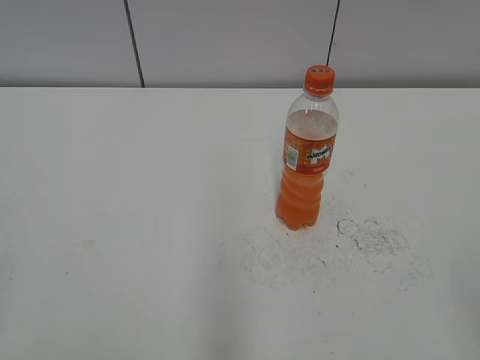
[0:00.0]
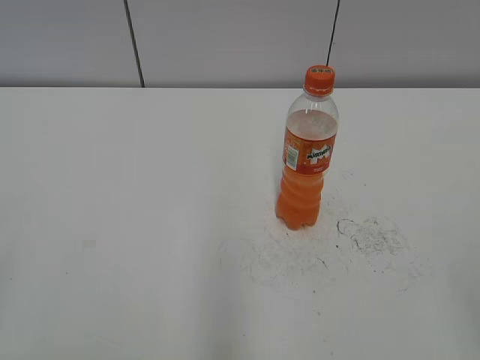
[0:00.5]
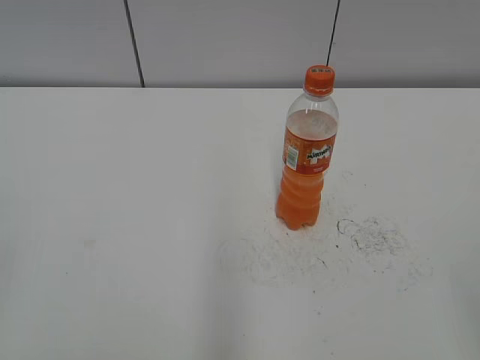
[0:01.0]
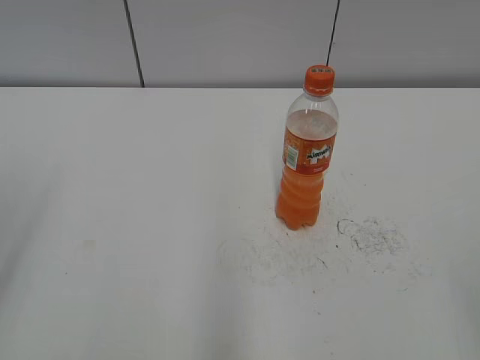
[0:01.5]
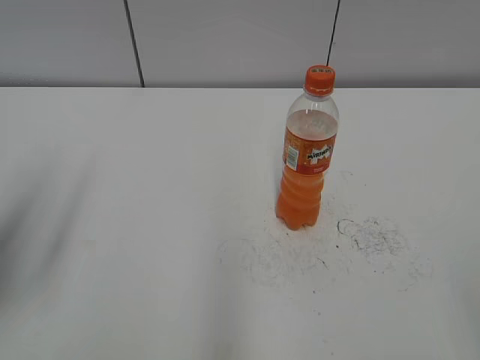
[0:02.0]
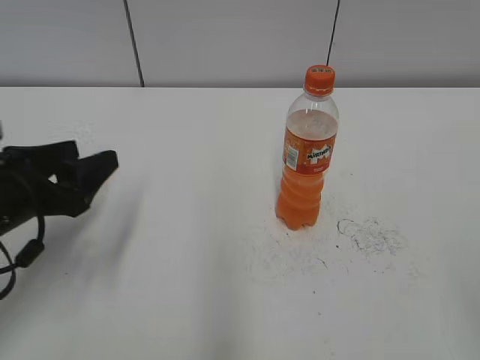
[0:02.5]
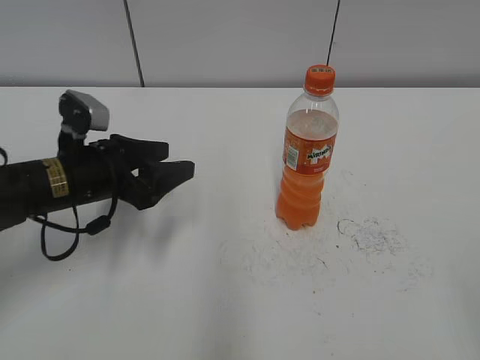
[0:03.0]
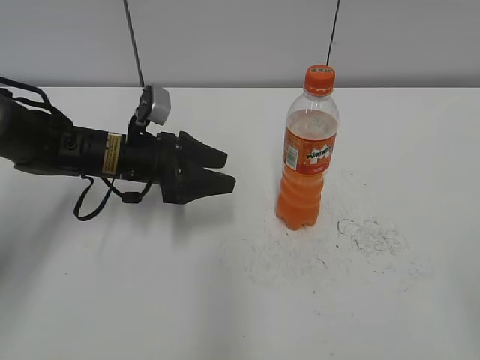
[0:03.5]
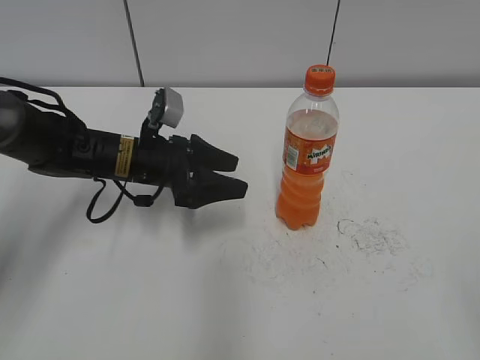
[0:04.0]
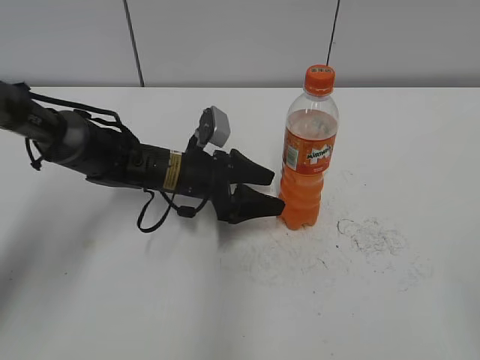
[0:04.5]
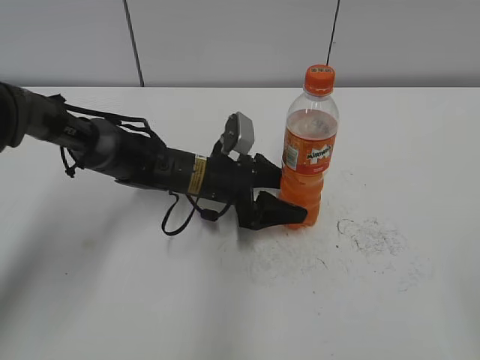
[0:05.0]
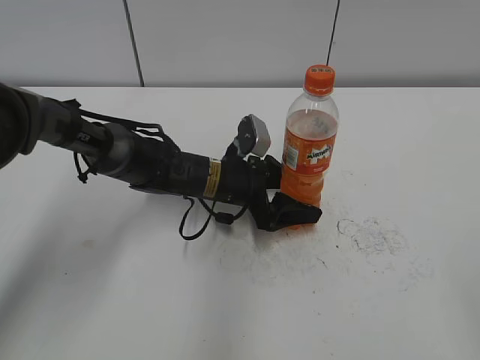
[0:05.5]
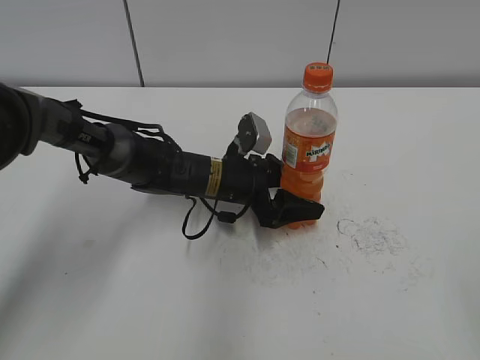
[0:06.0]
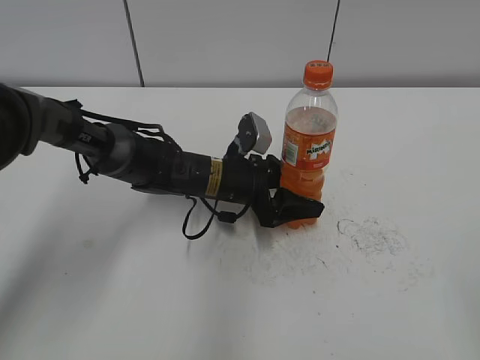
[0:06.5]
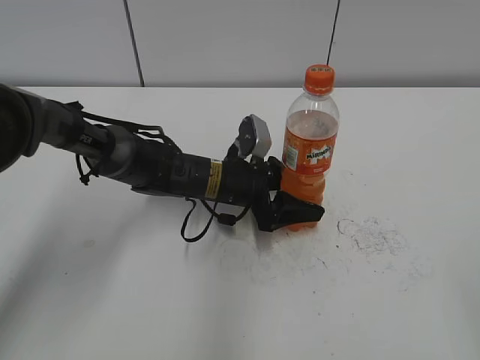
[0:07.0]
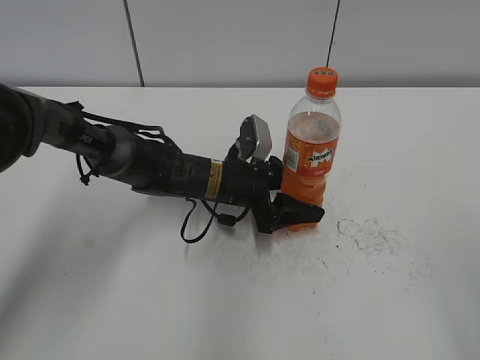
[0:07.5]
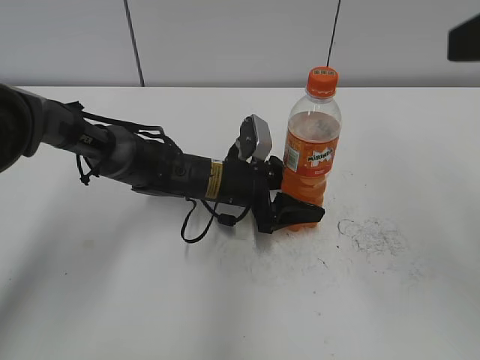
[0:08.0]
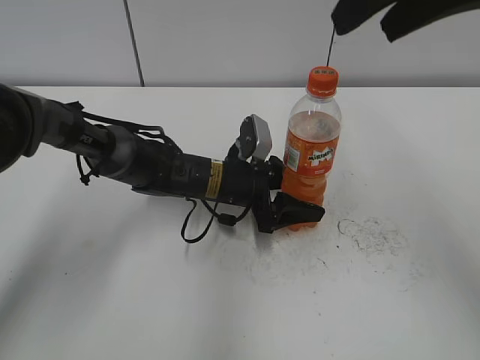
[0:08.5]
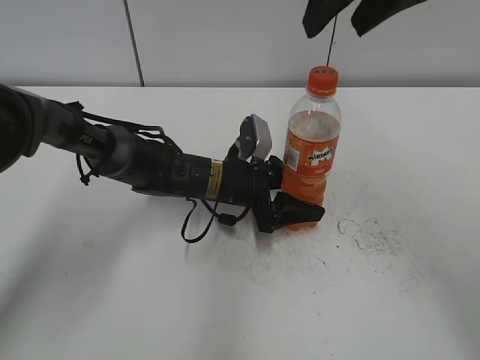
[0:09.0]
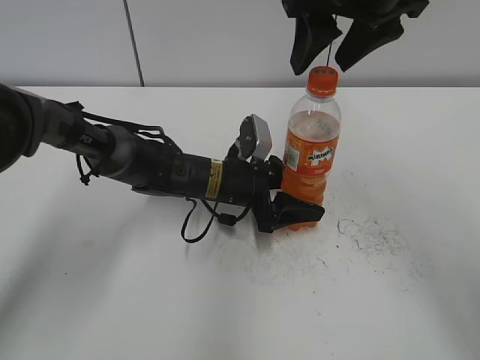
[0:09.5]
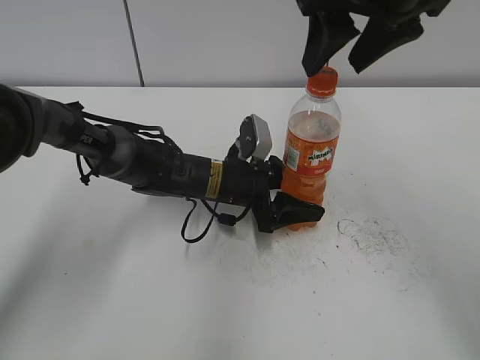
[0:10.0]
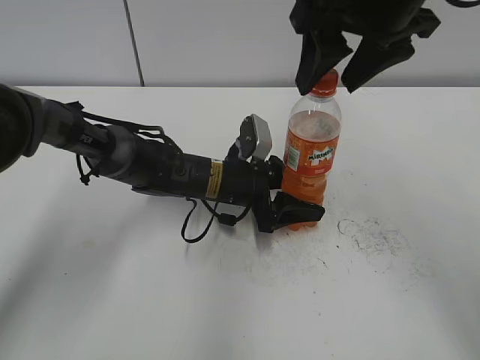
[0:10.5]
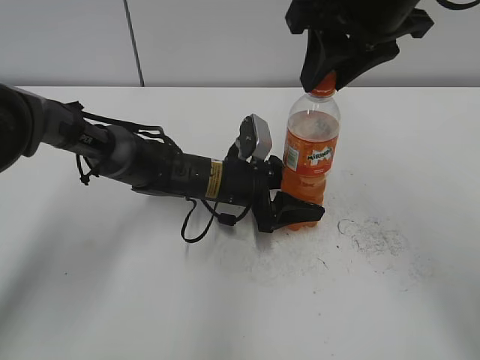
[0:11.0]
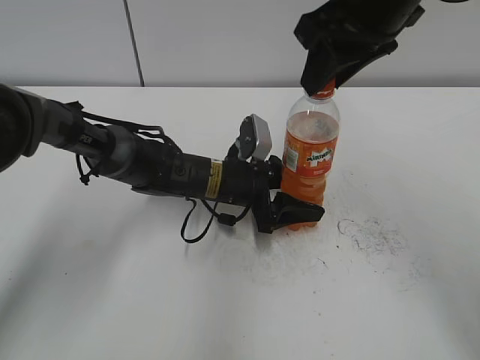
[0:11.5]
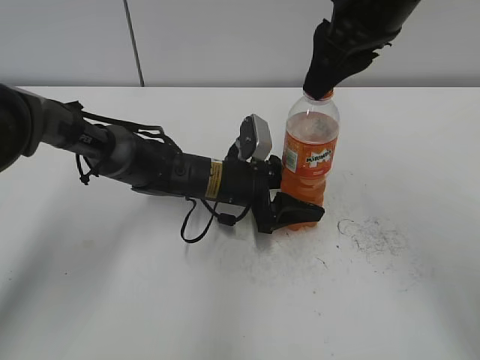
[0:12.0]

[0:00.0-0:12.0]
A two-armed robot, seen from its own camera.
Step, 0.0 to 6.5 s: Grab the Mirinda with the left hand.
2.0 to 4.0 s: The left gripper travels forward, to the right and downward by about 30 cm.
4.0 to 6.0 s: The left gripper shifts roughly 10 cm to the right.
6.0 to 8.0 s: The right gripper is displaced forward and upward by some 20 cm.
8.0 to 10.0 s: The right gripper travels forward and to the left by some 20 cm.
10.0 to 12.0 s: The right gripper closes its fingers.

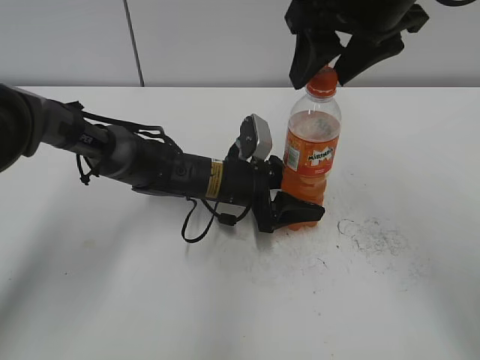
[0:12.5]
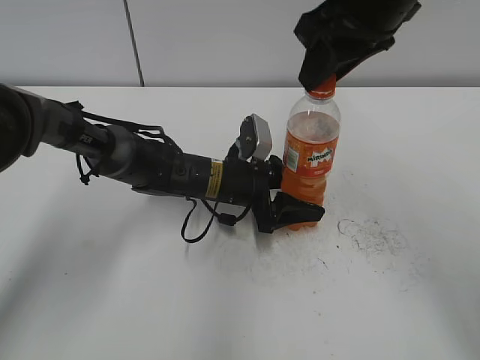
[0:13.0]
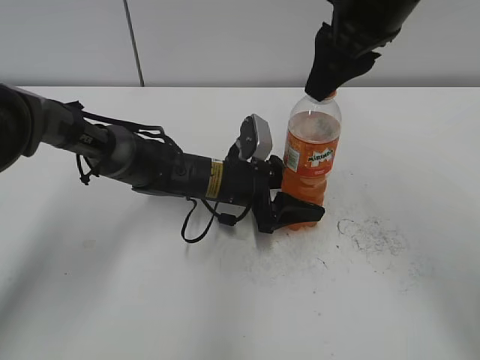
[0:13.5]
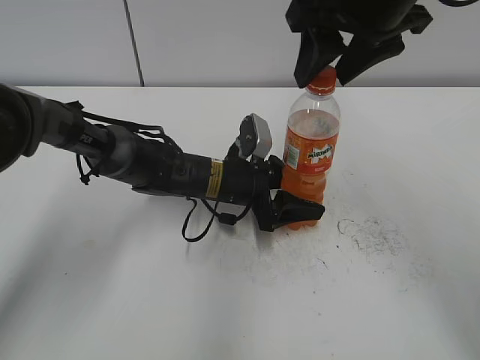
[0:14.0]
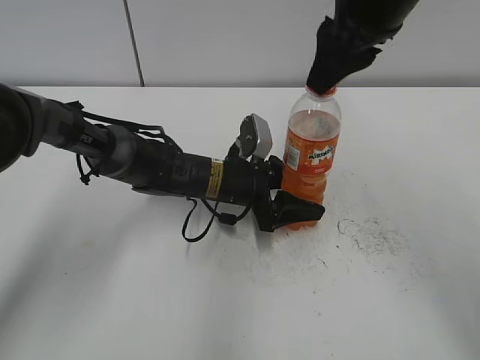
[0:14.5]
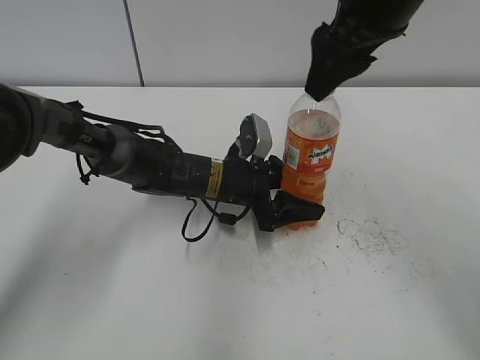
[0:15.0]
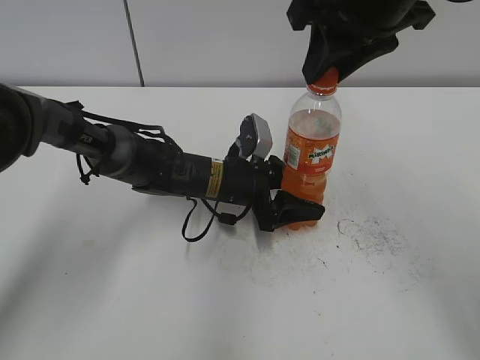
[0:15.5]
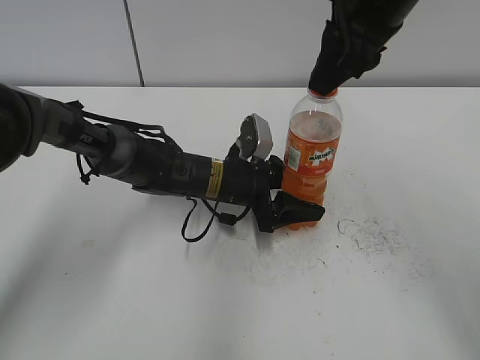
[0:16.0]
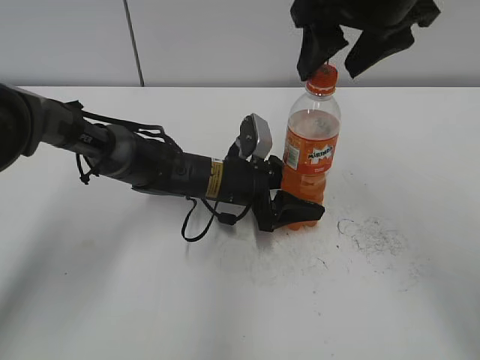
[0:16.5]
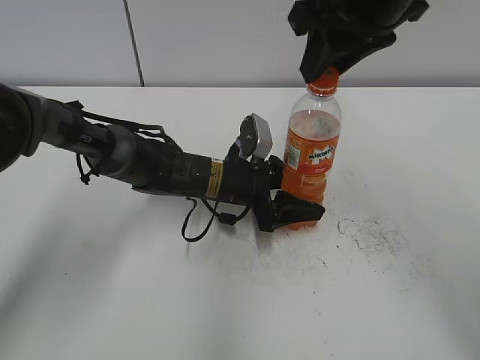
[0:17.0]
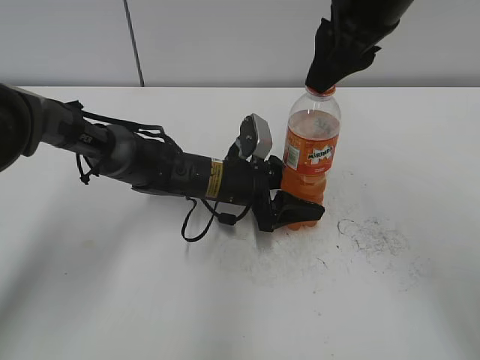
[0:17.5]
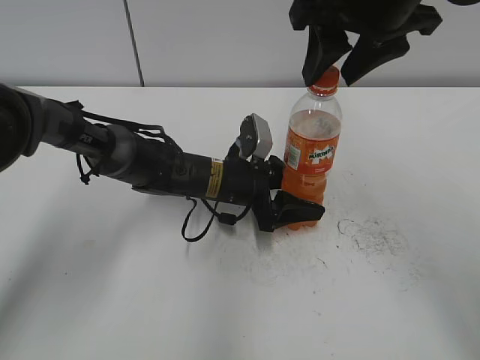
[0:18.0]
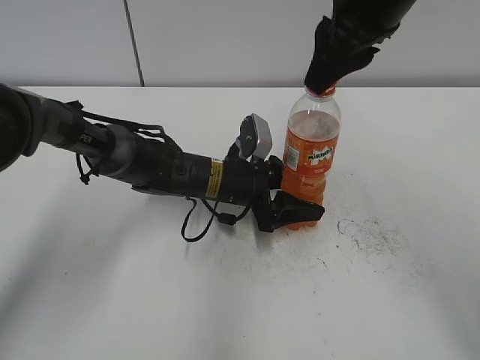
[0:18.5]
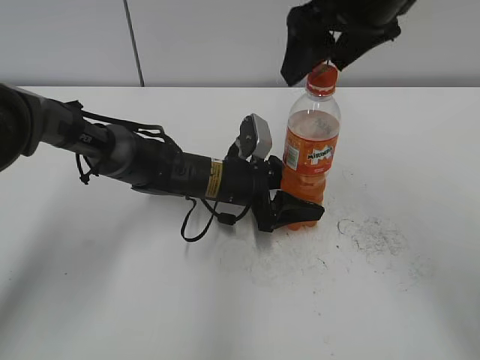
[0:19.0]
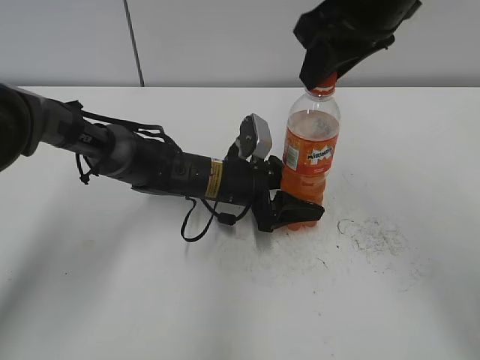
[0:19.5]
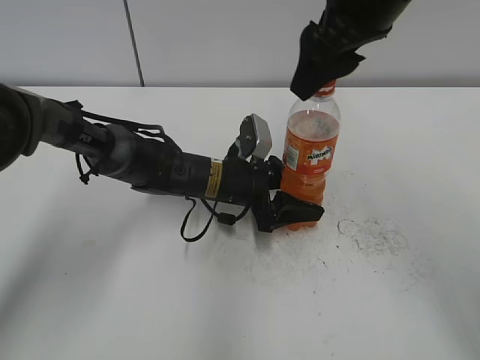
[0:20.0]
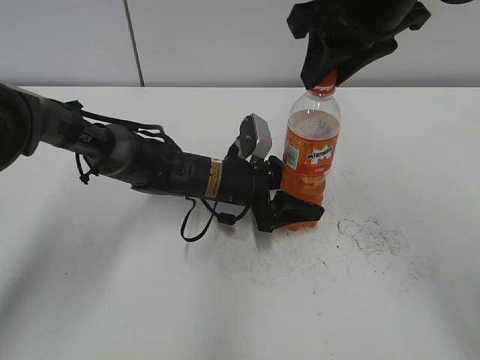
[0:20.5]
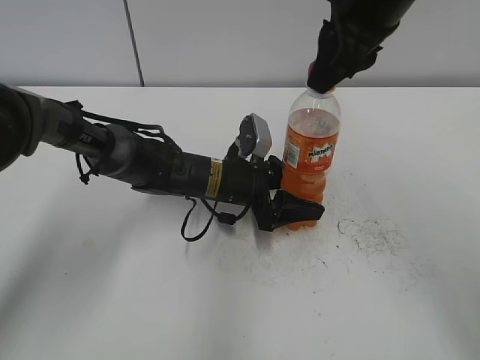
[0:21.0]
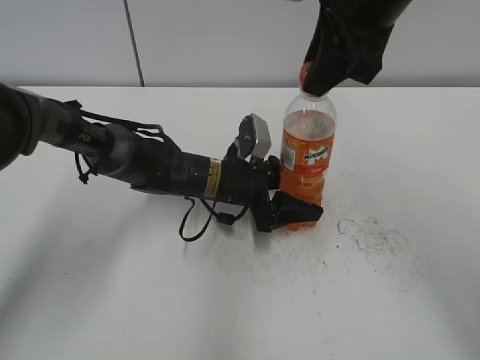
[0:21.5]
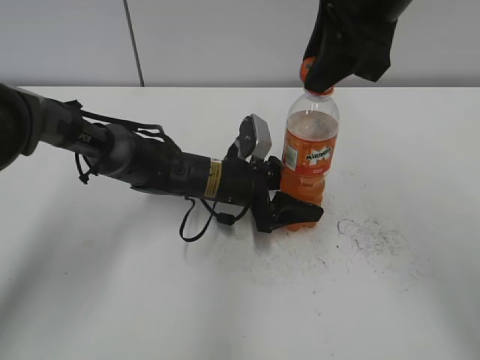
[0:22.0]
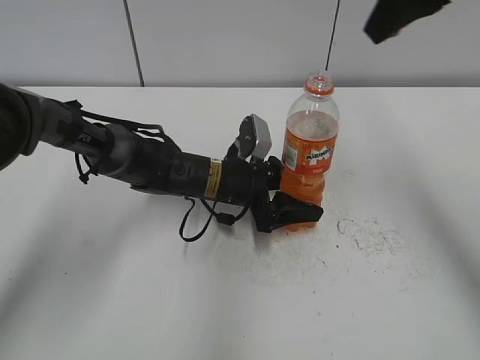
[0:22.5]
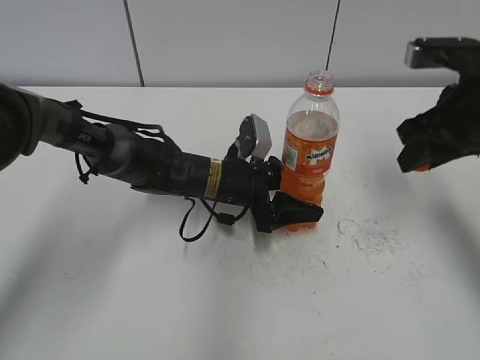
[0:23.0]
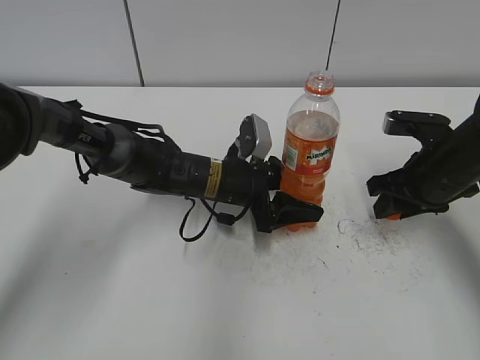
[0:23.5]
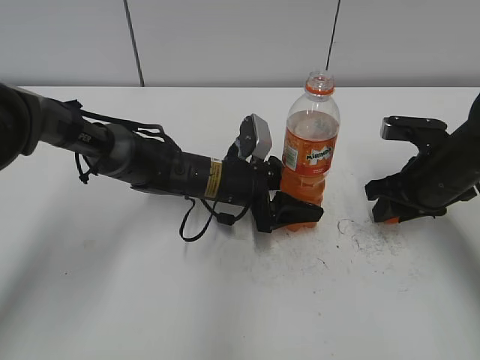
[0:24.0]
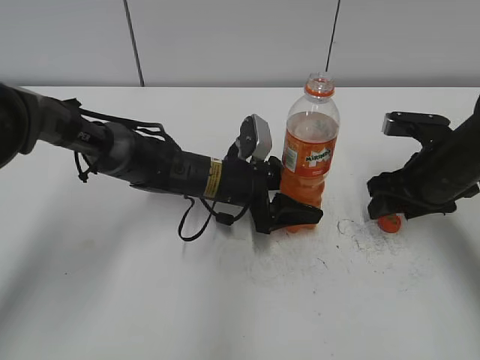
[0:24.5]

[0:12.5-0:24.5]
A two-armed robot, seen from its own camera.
Step, 12.5 to 22.0 s: Twist the bottle cap with the right hand.
Step, 22.5 to 24.0 s: Place the bottle cap on the table with the right hand.
12.5 to 14.5 s: The right gripper closes.
14.5 to 16.5 s: The right gripper opens.
16.5 to 18.5 s: The right gripper closes its fingers.
18.5 to 20.5 s: The right gripper opens, then closes again.
20.5 to 22.5 s: The right gripper goes about 5 cm to the right.
22.5 to 24.5 s: The right gripper moves downward, some 25 cm, and opens.

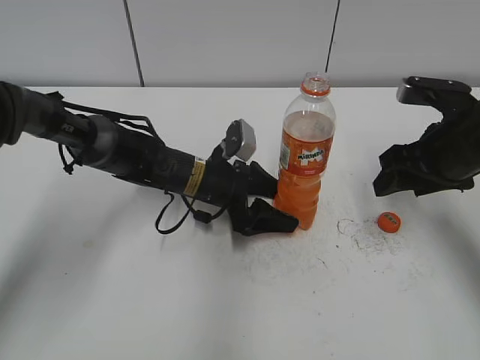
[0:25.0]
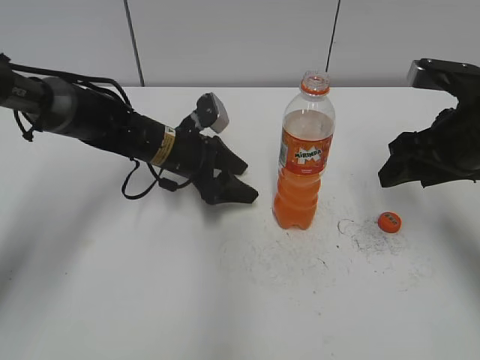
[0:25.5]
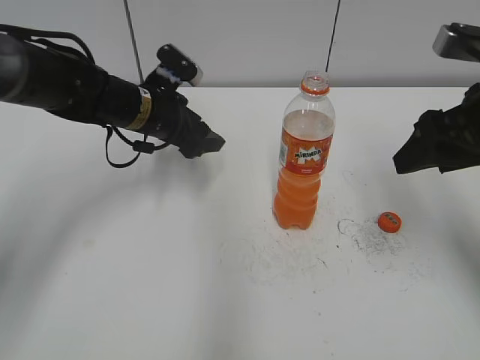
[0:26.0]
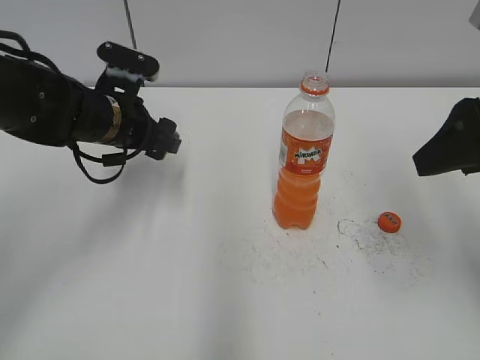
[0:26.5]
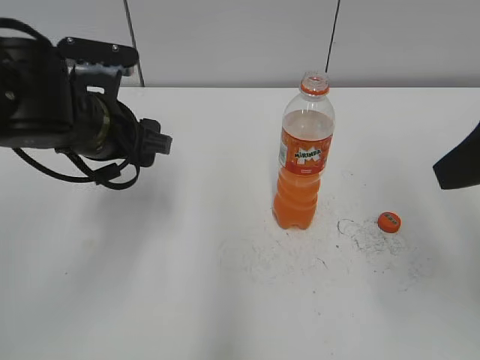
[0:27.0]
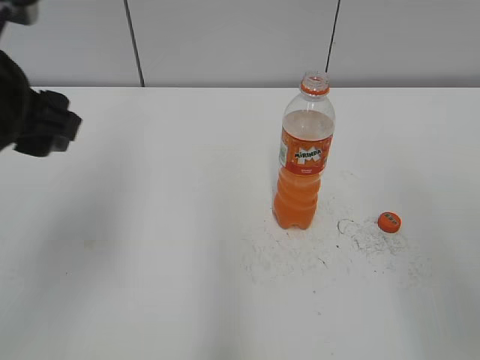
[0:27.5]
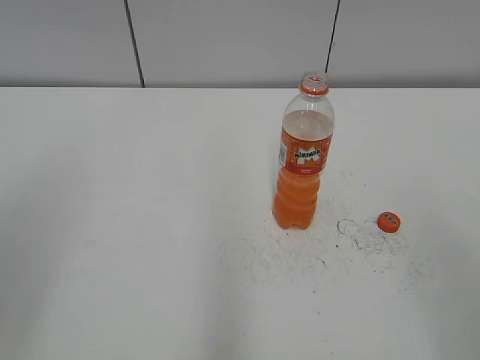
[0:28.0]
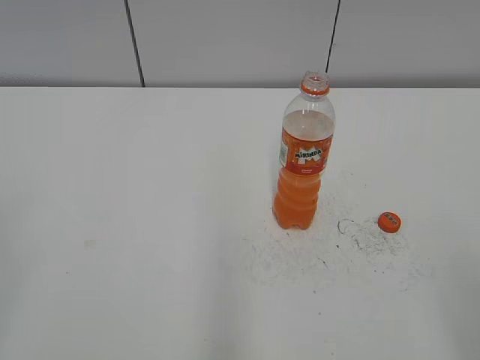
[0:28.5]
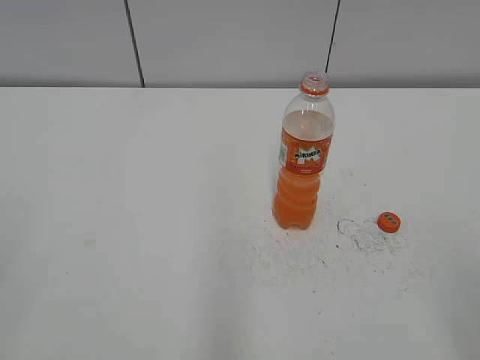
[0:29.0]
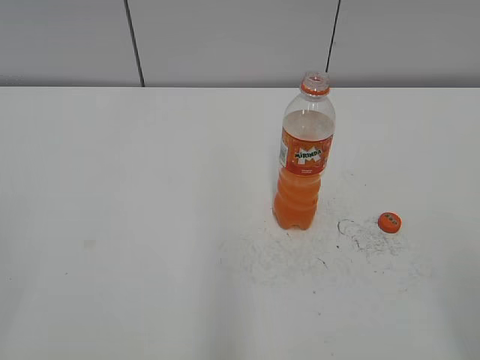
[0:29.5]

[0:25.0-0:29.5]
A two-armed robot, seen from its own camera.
25.0 to 27.0 s: The right gripper moves upward and backward, approximately 20 cm. The left gripper heads upward, to the left and backward, covering roughly 20 cm.
27.0 to 29.5 s: The left gripper moves backward and to the left, approximately 35 cm, and closes up. The right gripper travels backward by roughly 15 cm.
